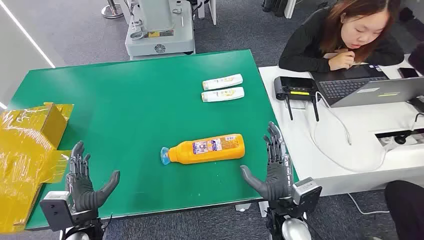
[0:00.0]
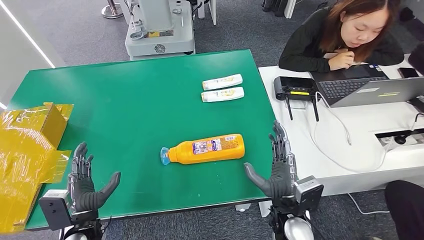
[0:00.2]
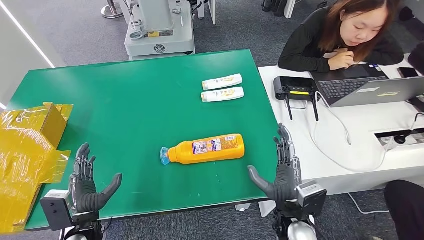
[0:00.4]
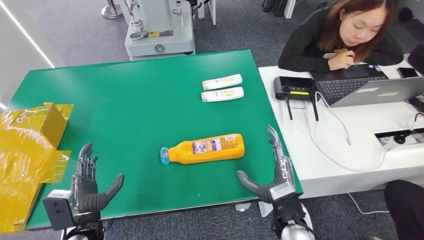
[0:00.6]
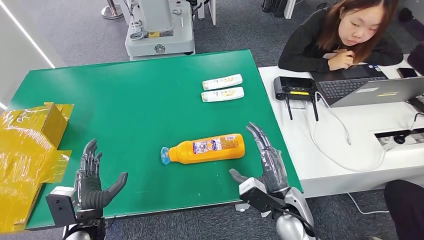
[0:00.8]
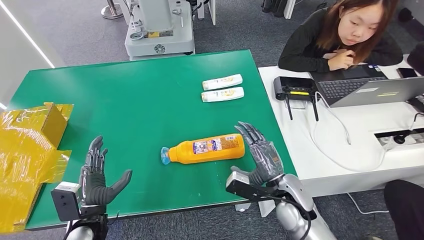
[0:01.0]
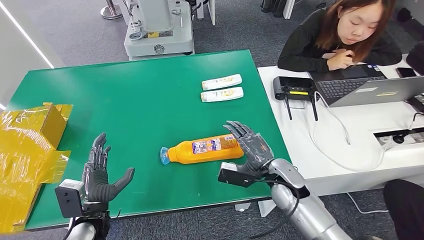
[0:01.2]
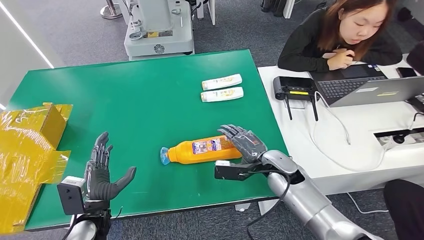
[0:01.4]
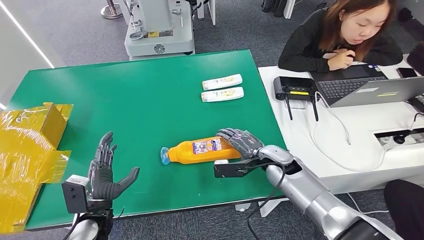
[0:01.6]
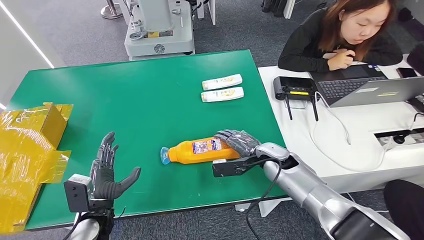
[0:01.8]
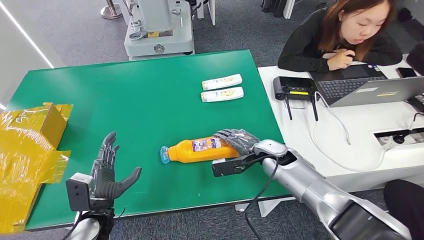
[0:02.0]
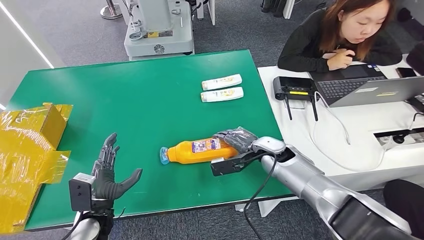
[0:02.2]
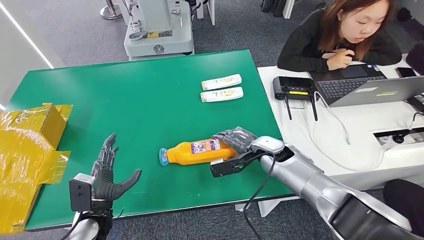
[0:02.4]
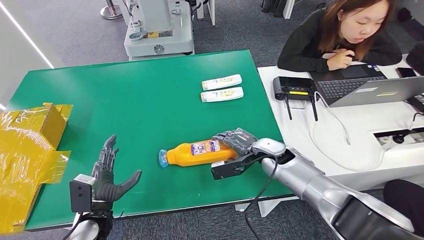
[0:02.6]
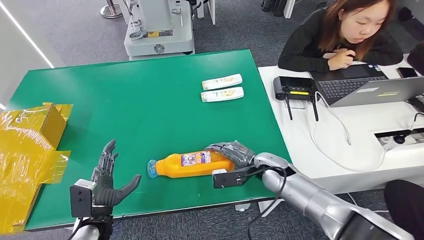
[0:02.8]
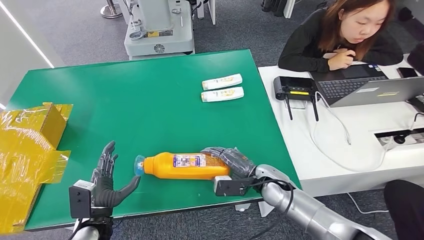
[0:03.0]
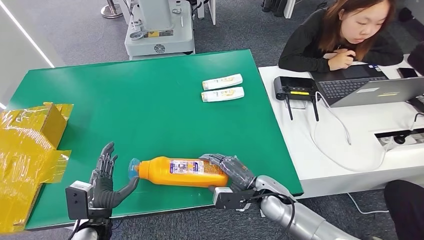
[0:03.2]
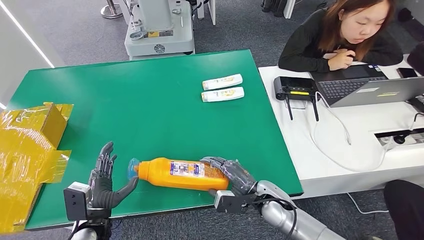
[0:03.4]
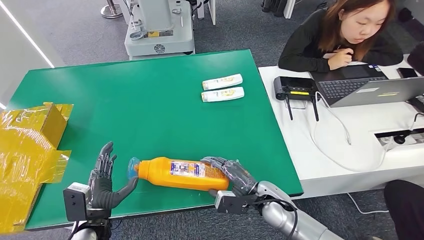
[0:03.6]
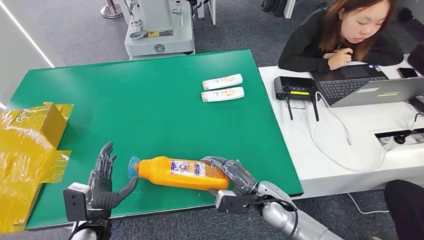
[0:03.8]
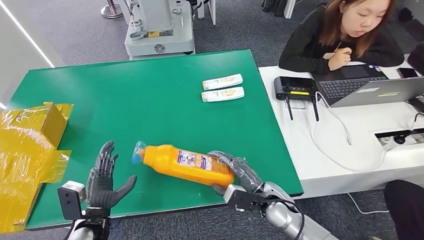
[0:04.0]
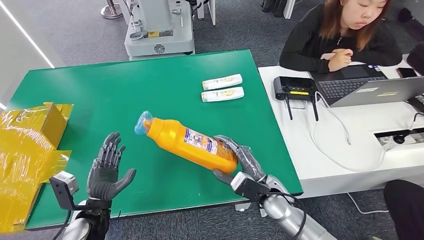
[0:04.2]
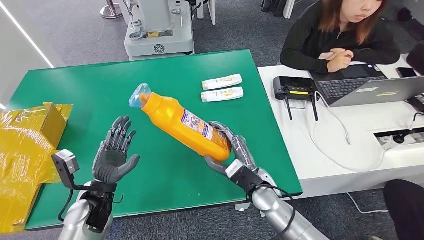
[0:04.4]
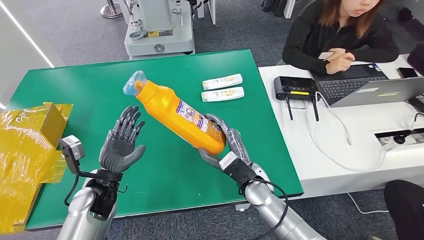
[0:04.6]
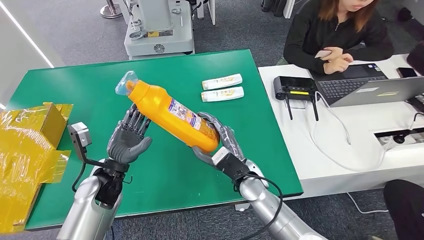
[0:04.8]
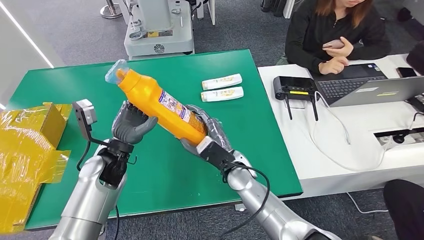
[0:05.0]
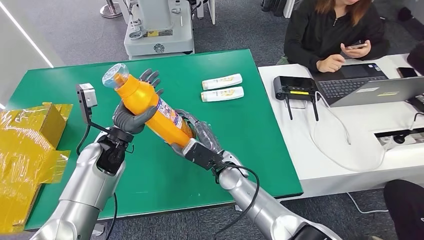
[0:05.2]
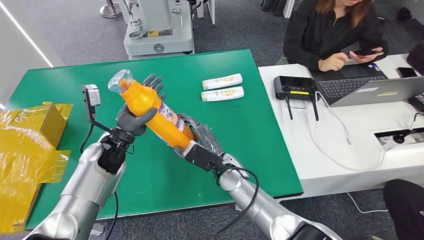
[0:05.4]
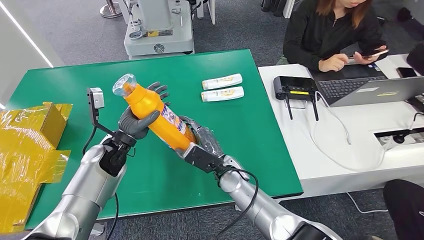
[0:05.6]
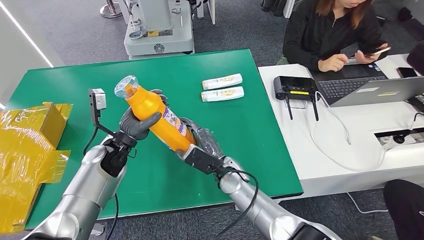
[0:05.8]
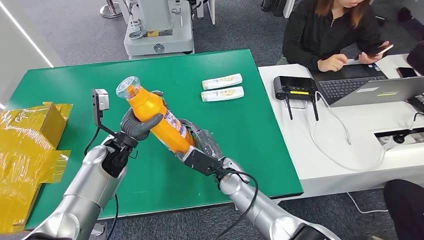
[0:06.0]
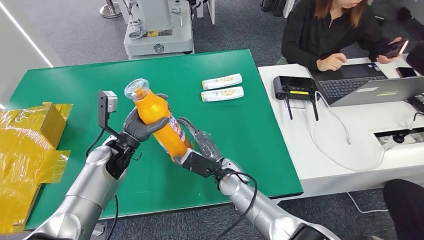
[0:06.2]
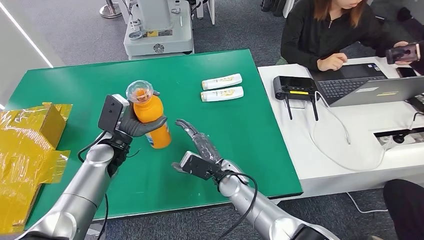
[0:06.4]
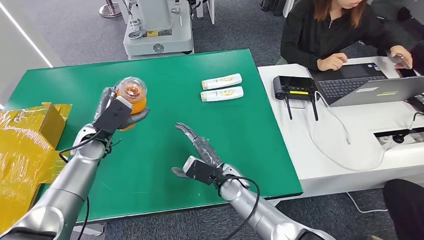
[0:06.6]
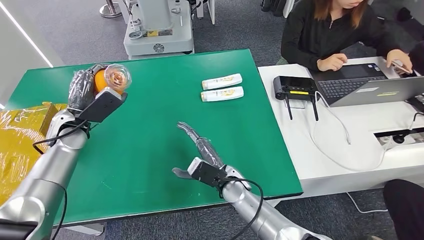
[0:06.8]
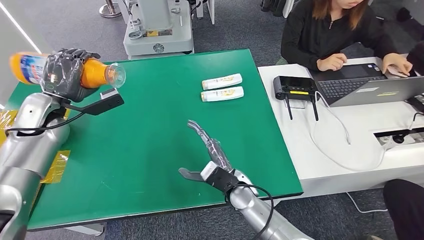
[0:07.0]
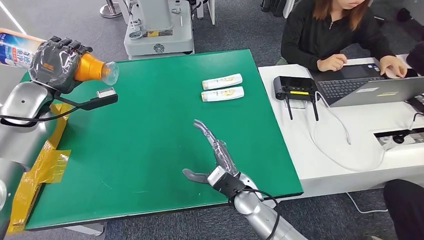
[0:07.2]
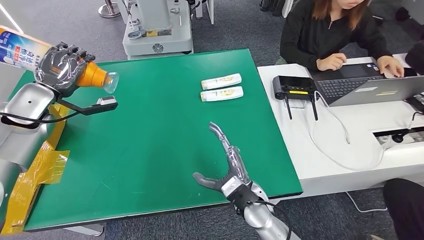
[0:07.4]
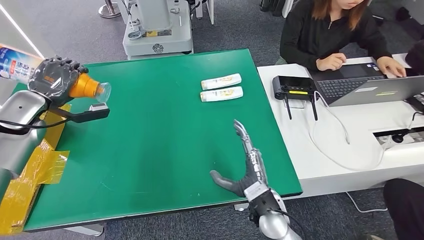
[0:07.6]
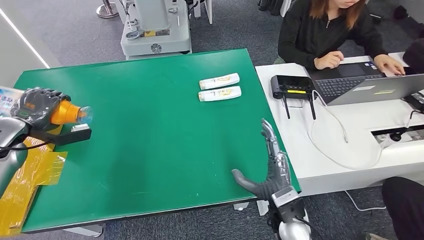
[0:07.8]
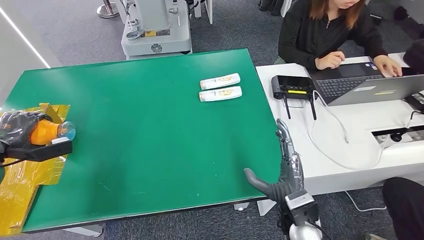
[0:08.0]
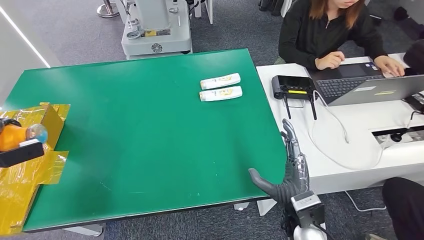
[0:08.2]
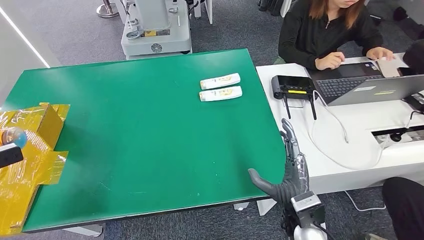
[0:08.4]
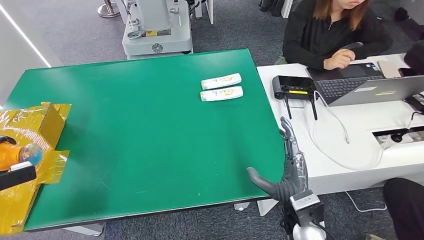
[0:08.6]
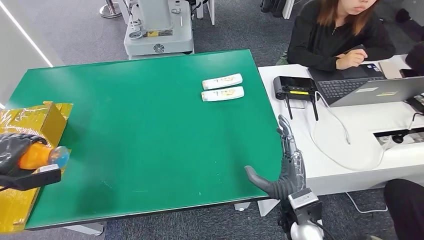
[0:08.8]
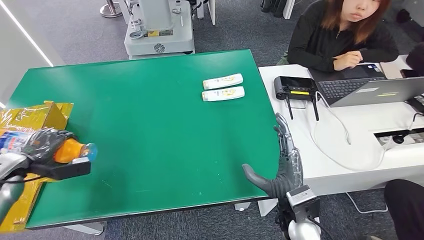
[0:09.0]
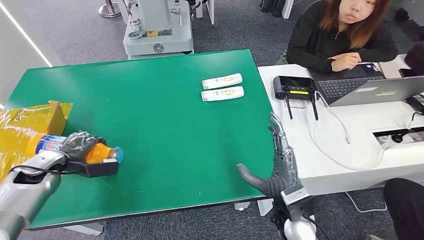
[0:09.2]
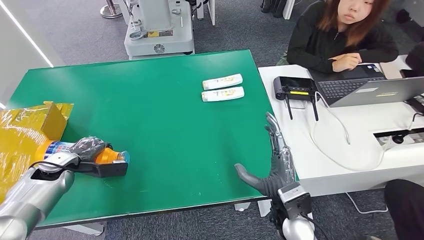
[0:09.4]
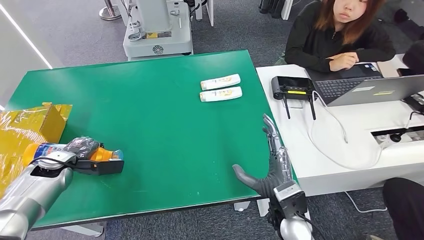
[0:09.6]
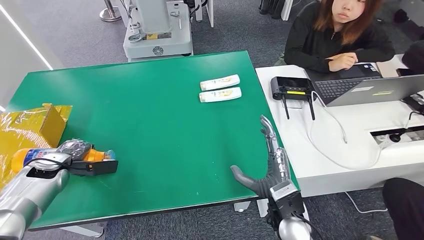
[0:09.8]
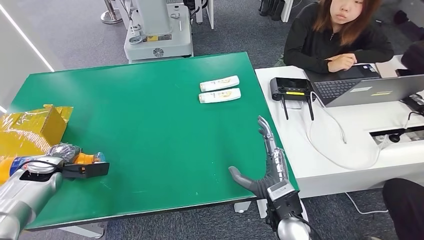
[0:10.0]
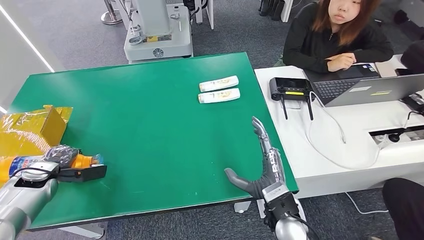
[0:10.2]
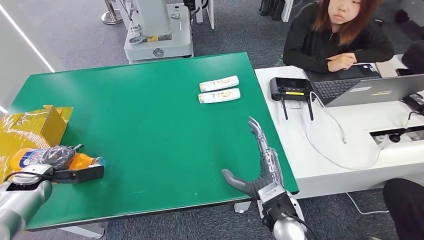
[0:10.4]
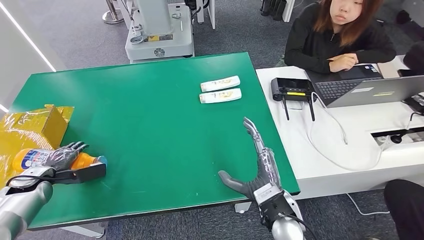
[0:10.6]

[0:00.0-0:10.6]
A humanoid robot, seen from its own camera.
Step, 0:00.0 to 0:04.0: Pick up the bottle from the table.
0:01.6 to 0:03.0: The right hand moves roughly 5 cm.
0:03.0 to 0:04.6: The left hand shifts about 10 cm forward and upward. The right hand travels to the left by roughly 10 cm.
0:04.6 to 0:06.0: The right hand goes some 5 cm to the left. Meanwhile the left hand goes approximately 10 cm forward.

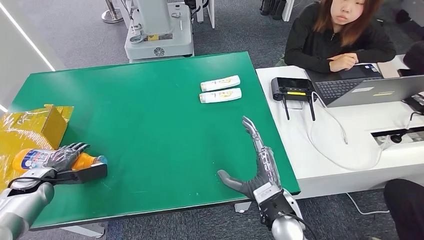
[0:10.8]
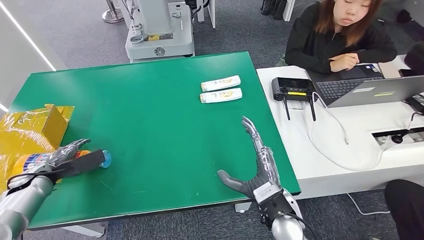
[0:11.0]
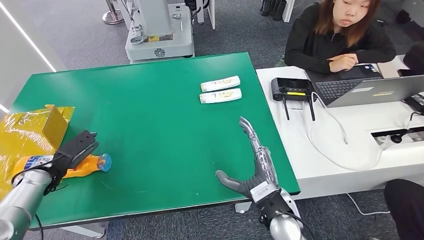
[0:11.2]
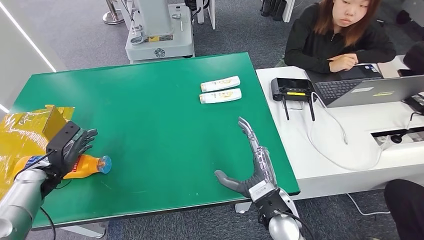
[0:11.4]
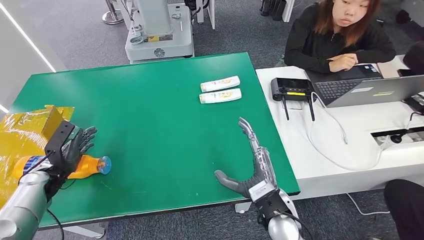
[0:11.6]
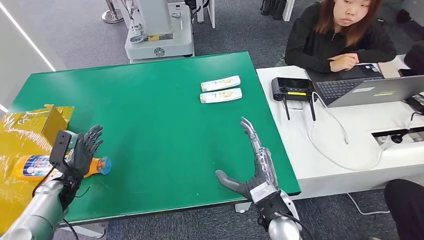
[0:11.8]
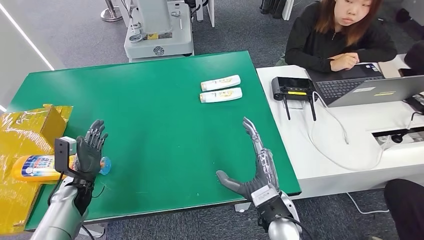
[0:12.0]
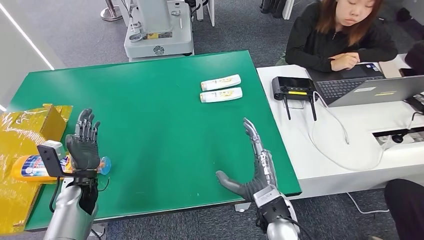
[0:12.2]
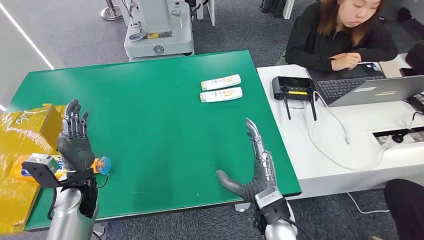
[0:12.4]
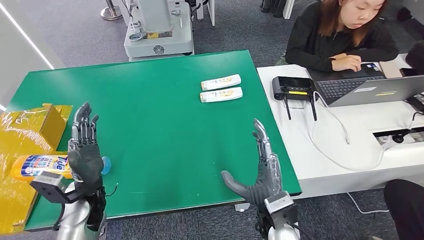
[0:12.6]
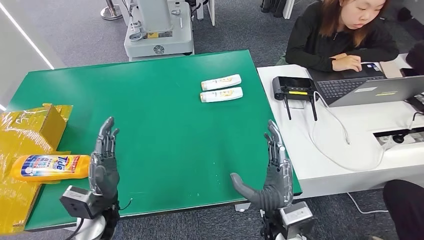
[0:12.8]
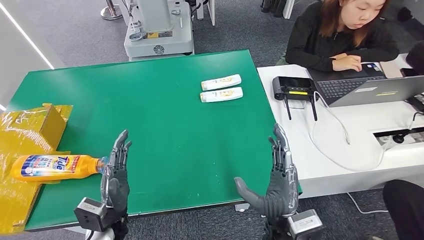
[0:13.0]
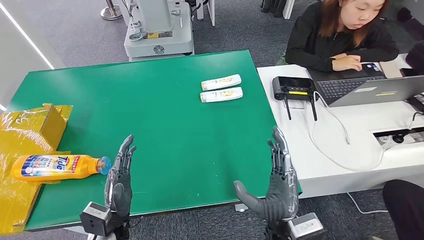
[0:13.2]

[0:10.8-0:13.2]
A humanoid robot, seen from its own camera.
Step, 0:10.8 to 0:13.2: Turn the bottle to the front side.
0:10.8 to 0:12.0: The left hand goes roughly 10 cm to the right.
0:12.0 to 0:13.2: The left hand moves to the right and backward, some 20 cm; the right hand changes place by some 5 cm.

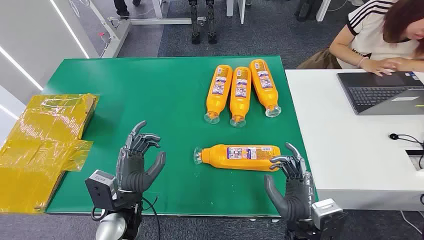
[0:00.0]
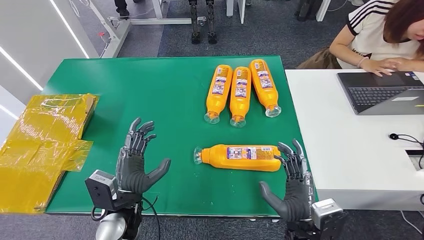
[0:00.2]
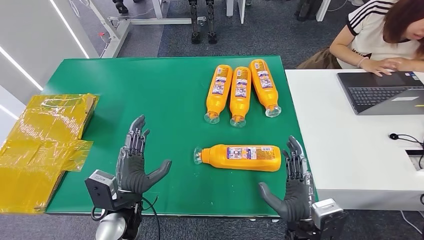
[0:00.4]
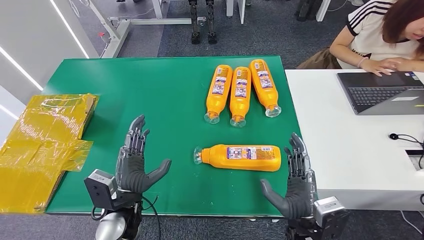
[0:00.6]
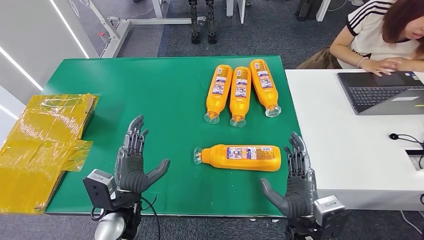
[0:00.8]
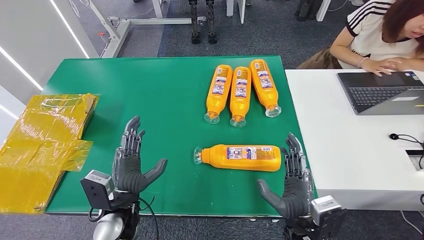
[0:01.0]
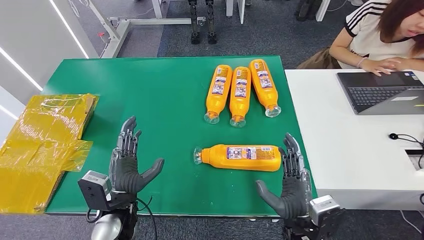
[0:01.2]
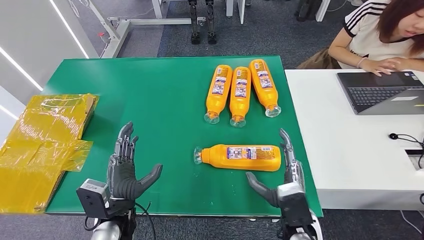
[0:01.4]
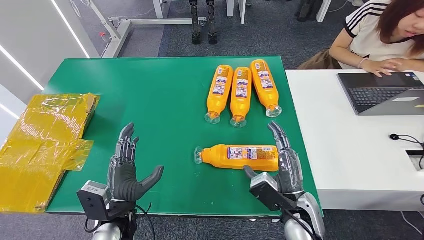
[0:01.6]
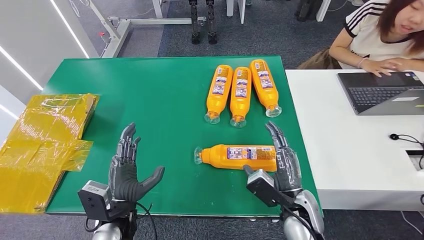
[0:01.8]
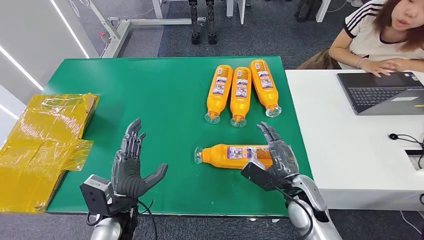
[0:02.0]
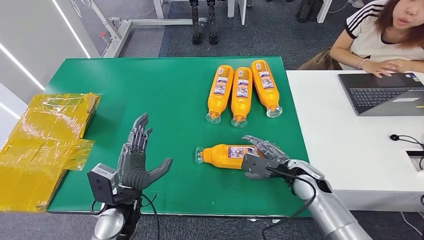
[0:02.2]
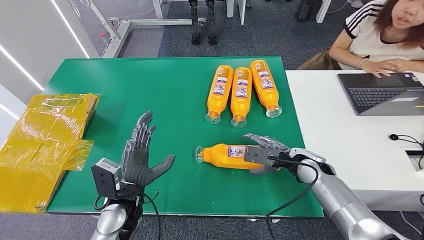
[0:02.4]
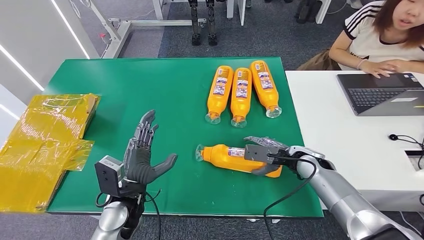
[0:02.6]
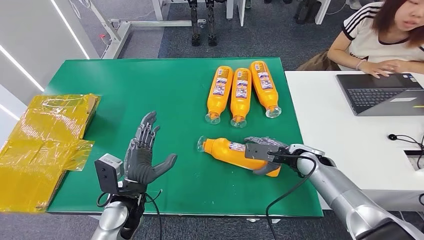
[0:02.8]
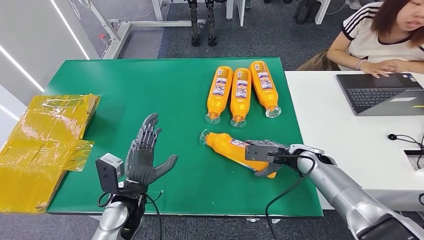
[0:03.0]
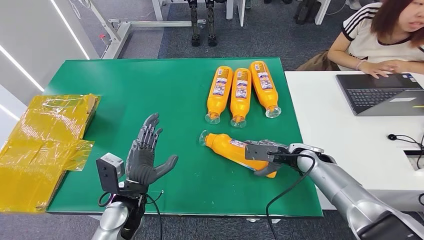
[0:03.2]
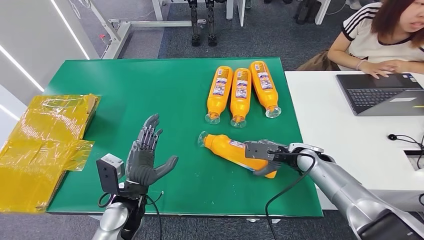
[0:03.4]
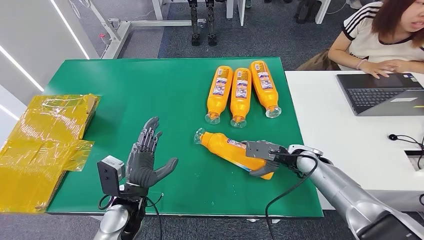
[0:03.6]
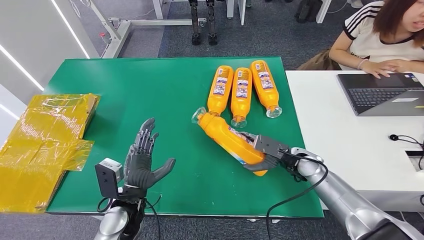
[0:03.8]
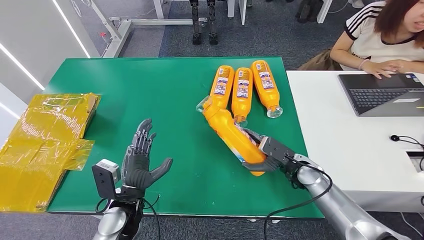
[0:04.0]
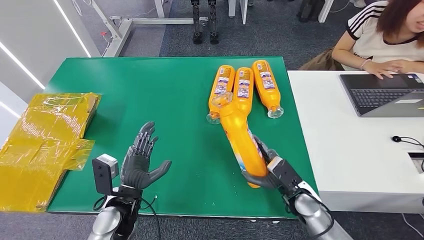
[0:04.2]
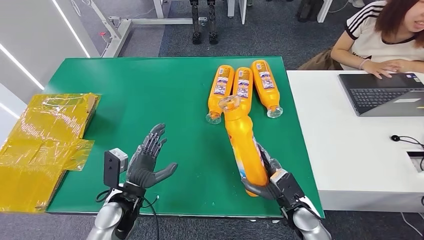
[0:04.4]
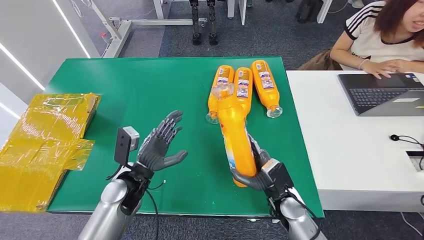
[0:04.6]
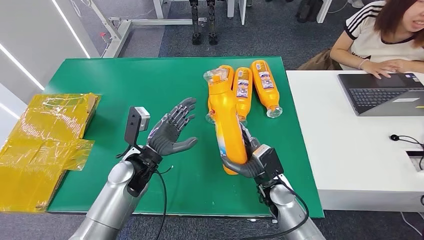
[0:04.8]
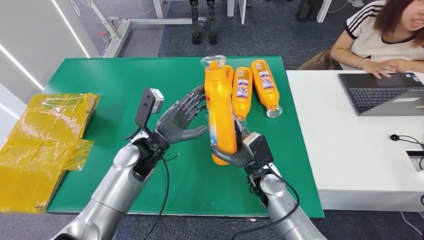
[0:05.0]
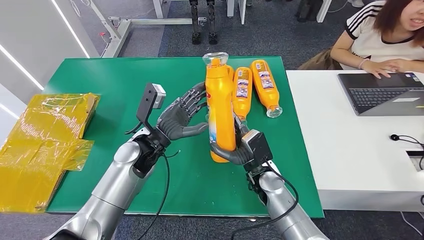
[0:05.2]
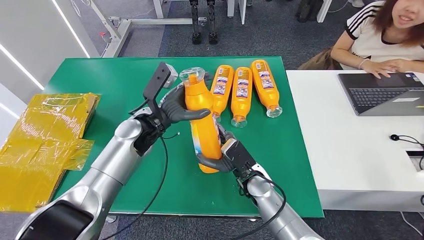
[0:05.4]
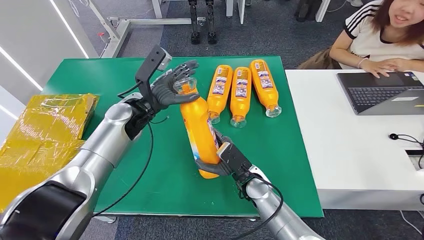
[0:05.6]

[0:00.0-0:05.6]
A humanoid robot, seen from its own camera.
Step, 0:00.0 to 0:04.6: Pick up the bottle from the table.
